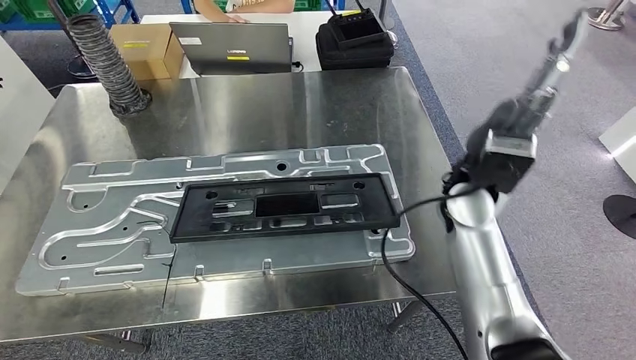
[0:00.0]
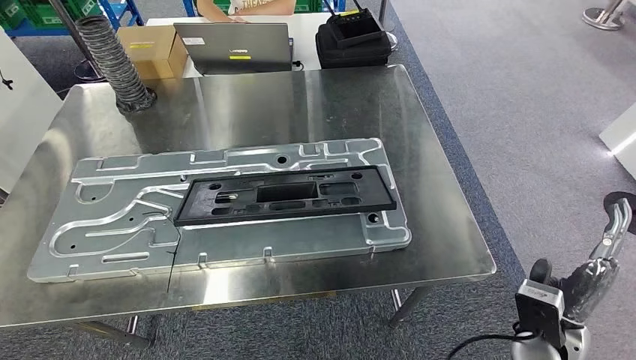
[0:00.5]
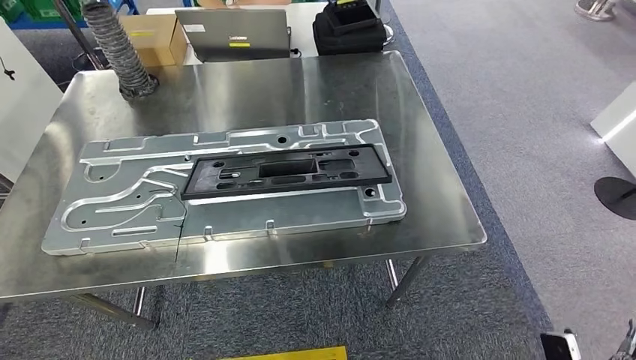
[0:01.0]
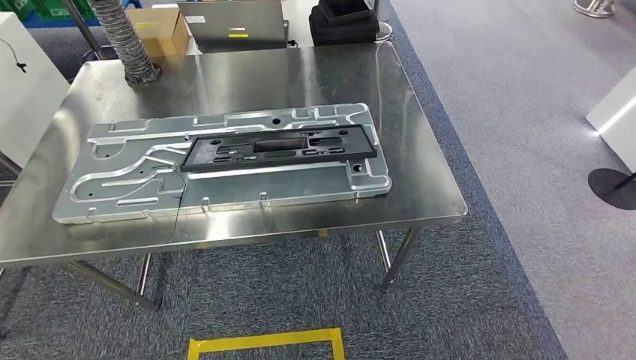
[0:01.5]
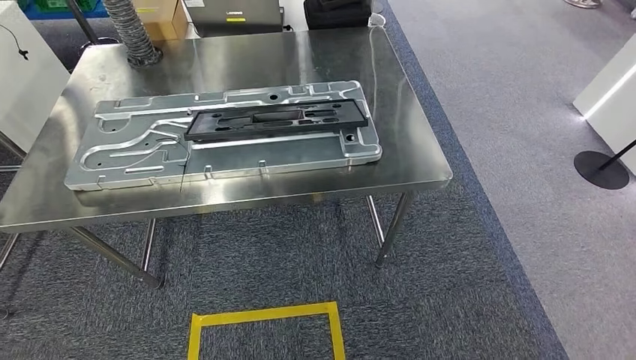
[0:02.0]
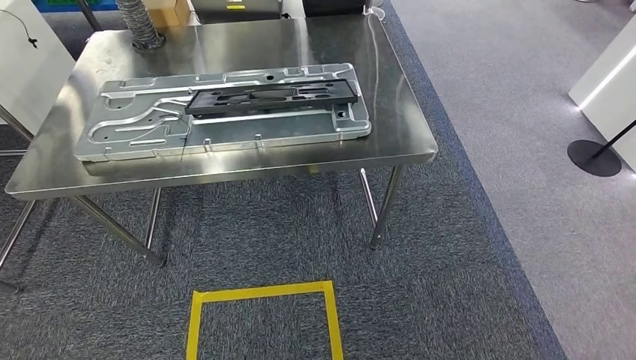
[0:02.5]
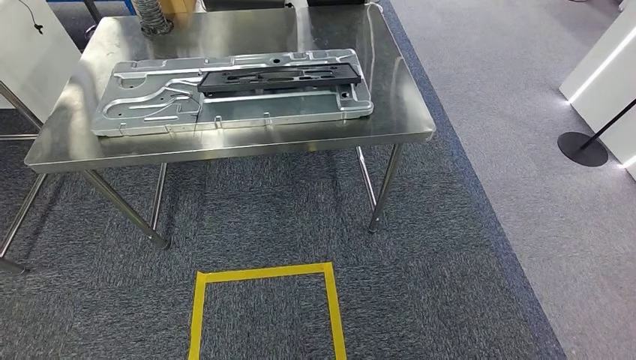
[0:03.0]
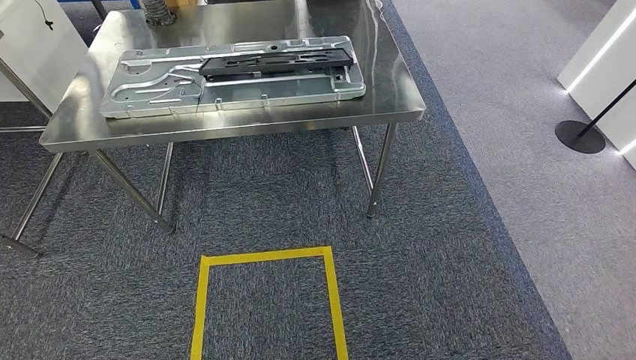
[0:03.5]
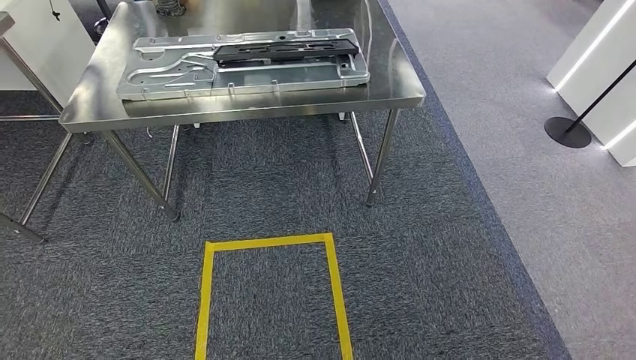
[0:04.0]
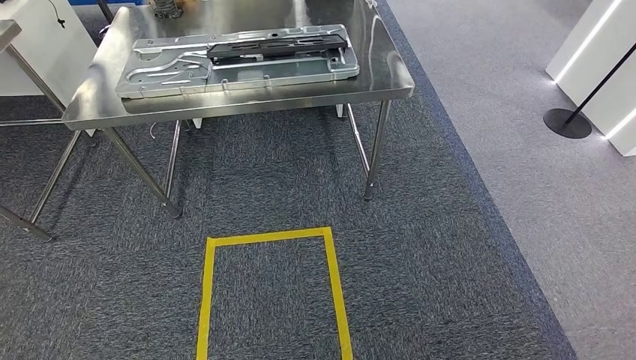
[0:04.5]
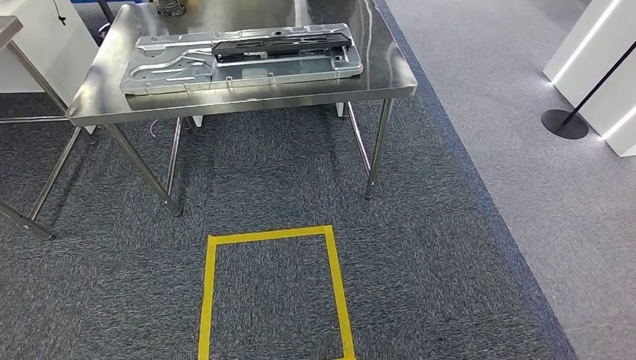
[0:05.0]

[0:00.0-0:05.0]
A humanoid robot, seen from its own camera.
Step, 0:00.0 to 0:01.5: Insert the large material into the corresponding slot on the workbench.
Step, 0:02.0 to 0:05.0: Move to the initial position of the shelf.
